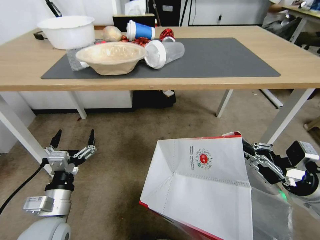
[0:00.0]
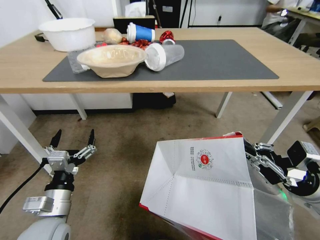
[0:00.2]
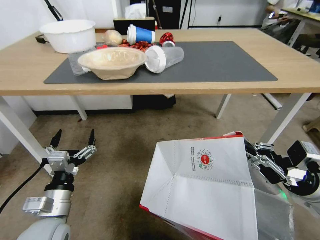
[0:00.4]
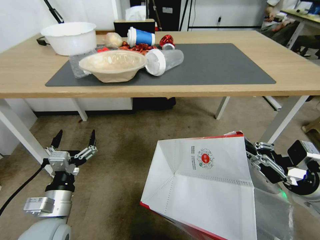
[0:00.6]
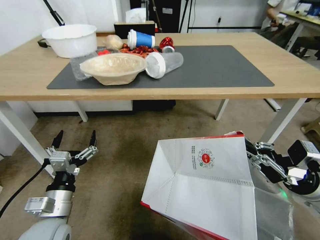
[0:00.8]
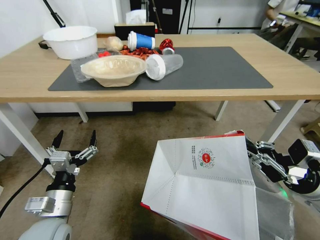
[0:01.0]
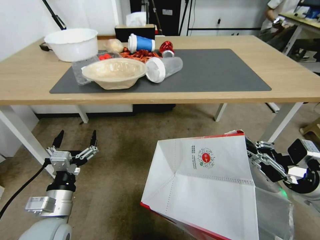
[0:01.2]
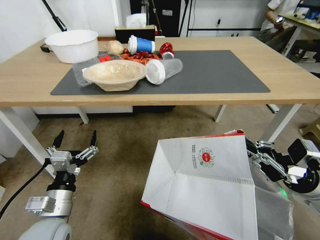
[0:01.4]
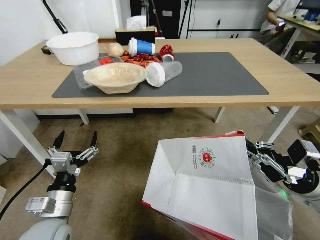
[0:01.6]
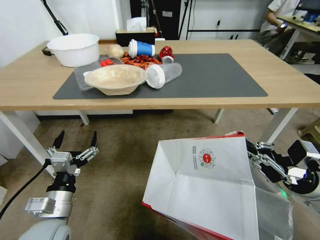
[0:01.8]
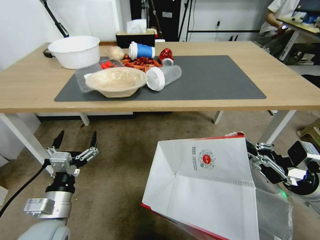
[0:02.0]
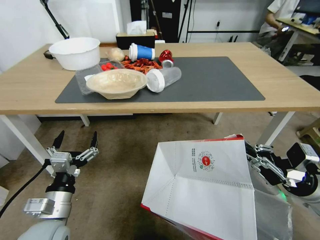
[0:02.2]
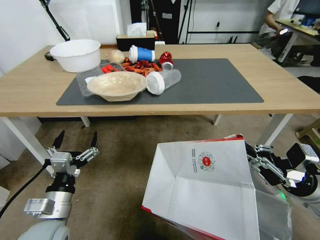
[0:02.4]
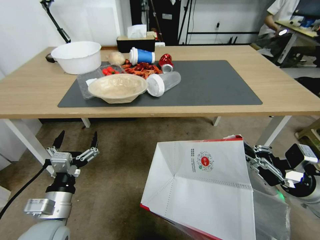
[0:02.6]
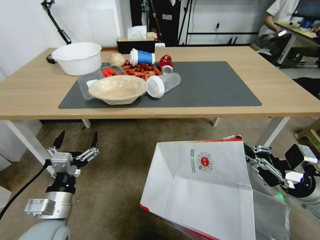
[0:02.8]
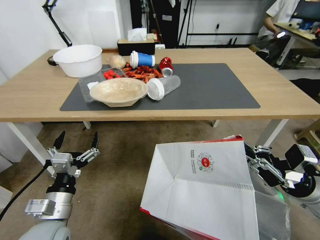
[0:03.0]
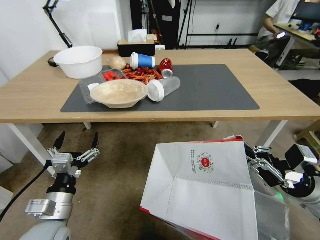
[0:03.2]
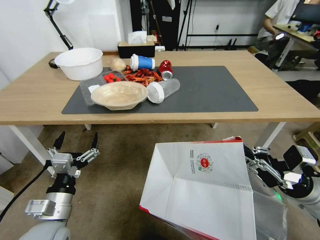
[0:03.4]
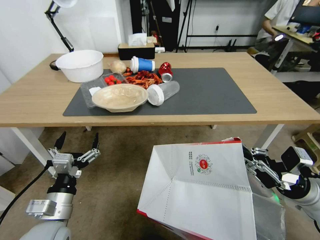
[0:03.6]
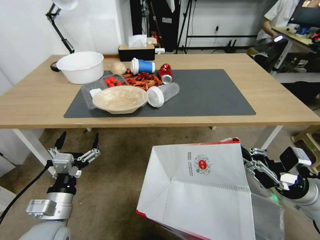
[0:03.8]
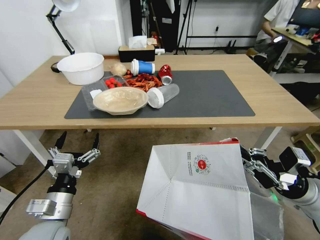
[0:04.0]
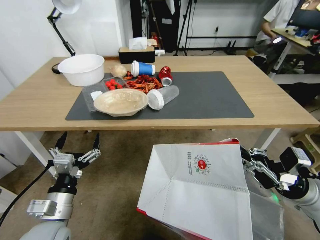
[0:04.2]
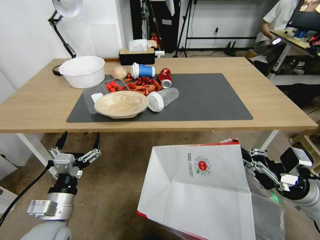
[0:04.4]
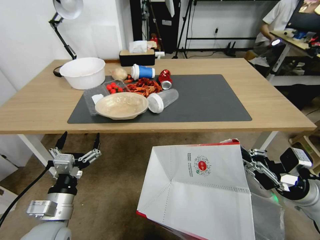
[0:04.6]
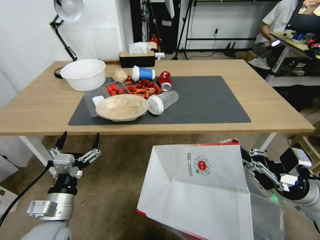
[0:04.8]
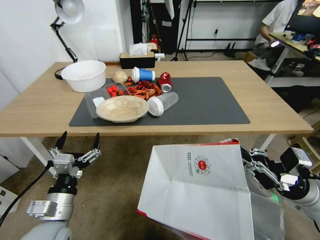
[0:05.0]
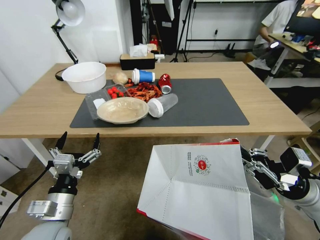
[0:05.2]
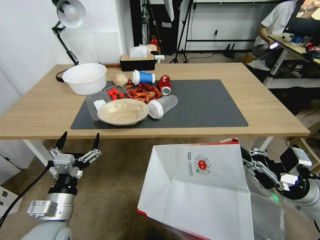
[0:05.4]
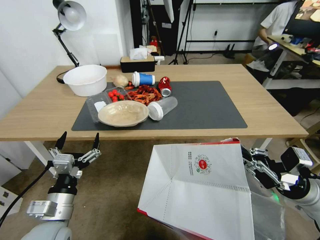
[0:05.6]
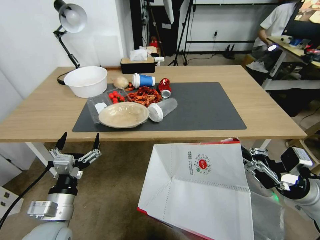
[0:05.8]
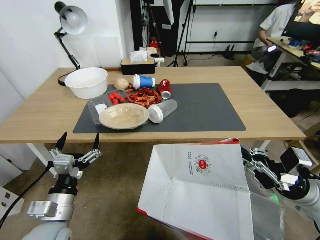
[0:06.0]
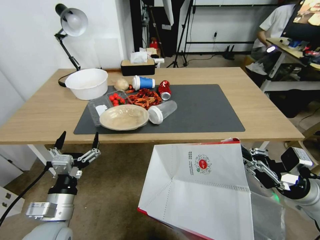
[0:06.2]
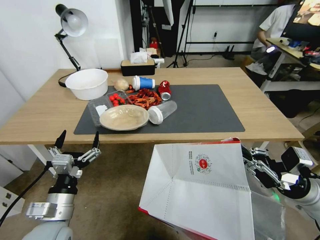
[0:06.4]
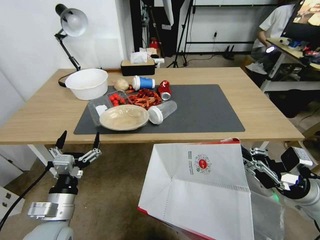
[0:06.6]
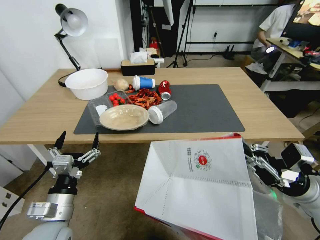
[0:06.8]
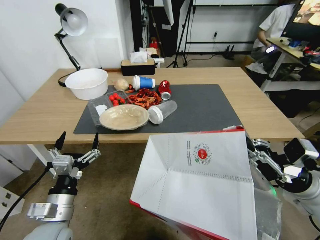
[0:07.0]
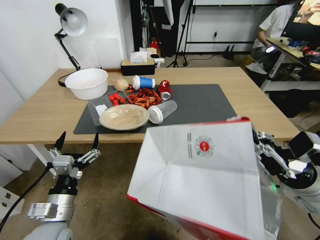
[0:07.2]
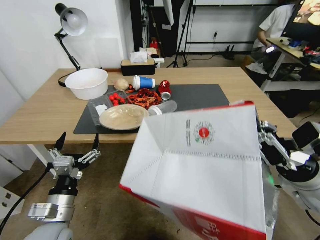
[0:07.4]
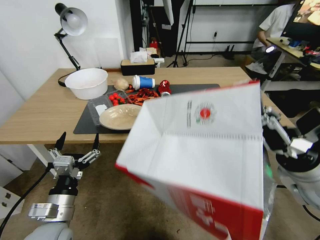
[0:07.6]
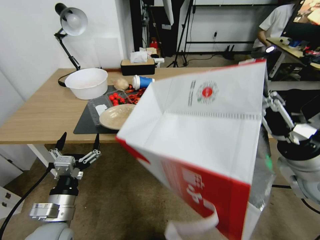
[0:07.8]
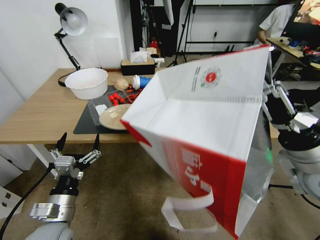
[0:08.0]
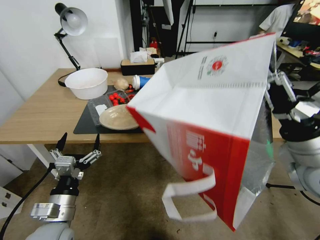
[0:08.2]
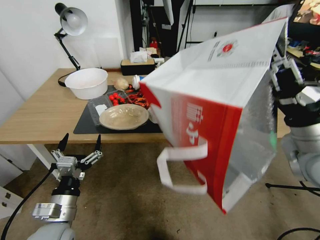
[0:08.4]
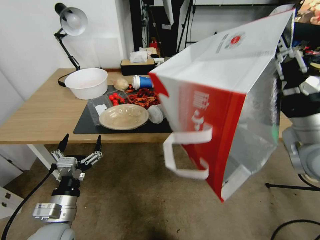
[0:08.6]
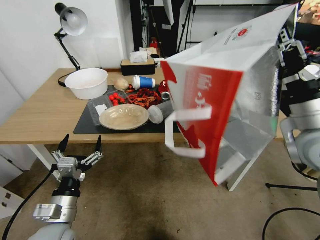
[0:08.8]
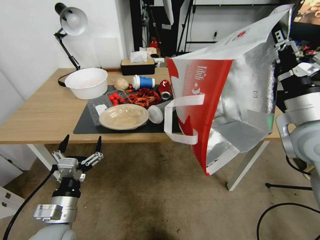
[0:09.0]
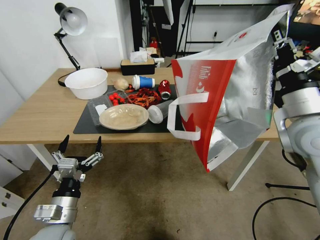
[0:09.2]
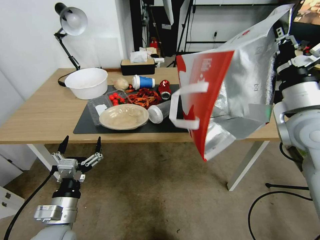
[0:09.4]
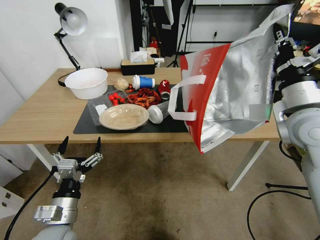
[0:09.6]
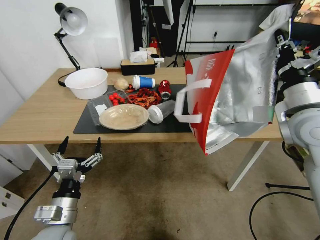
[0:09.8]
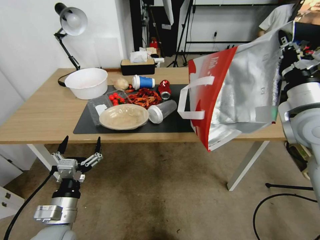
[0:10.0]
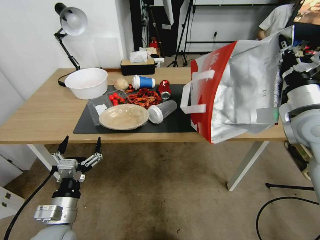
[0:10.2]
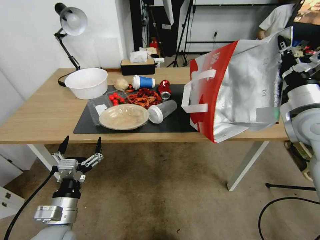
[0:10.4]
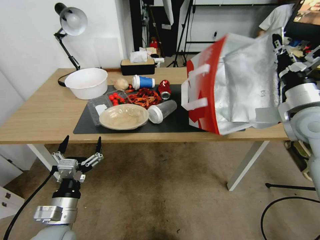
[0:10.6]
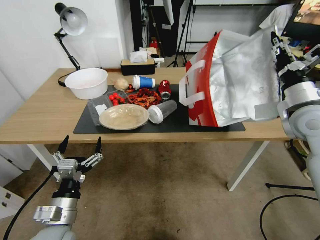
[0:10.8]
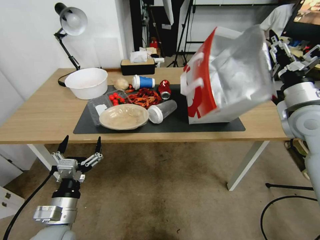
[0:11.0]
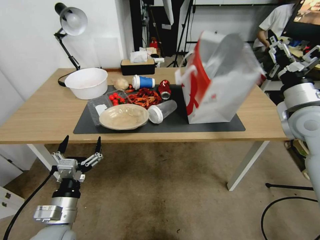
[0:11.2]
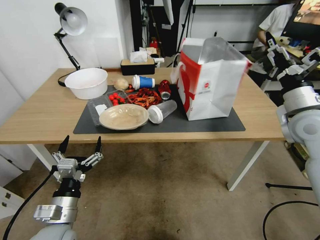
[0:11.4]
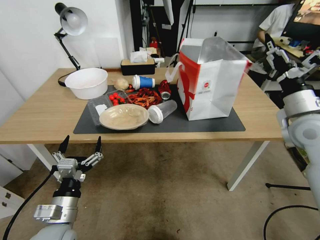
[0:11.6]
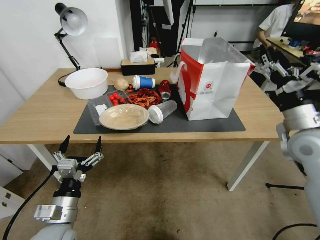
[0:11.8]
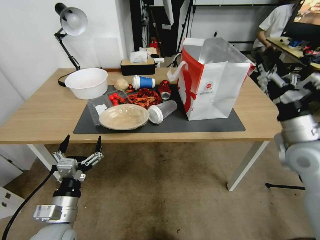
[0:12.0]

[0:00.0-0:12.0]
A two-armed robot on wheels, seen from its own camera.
Task of the whole recording: Pick up the food delivery bag from the floor and place it on the table.
0:06.0 to 0:07.6: The right gripper heads upward, covering approximately 5 cm.
0:07.6 to 0:09.0: The right gripper heads upward and forward, covering about 10 cm.
0:09.0 to 0:10.4: The right gripper shifts about 5 cm forward.
0:10.4 to 0:12.0: The right gripper moves downward and backward, about 10 cm, and opens its fingers.

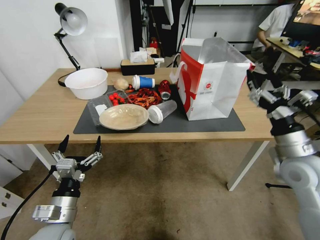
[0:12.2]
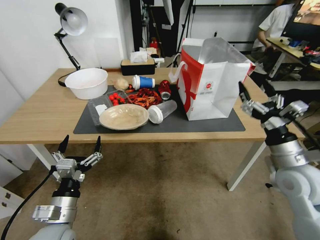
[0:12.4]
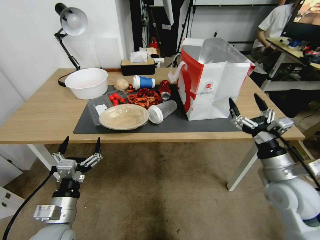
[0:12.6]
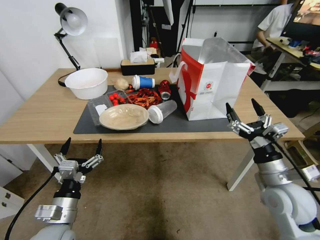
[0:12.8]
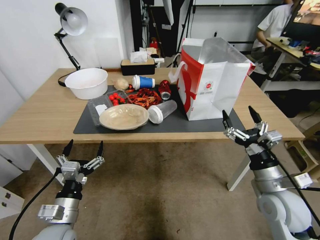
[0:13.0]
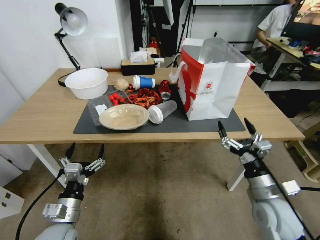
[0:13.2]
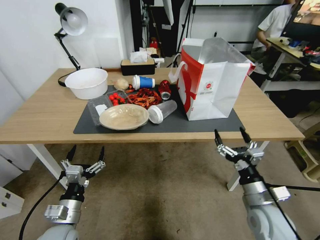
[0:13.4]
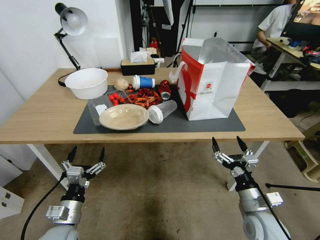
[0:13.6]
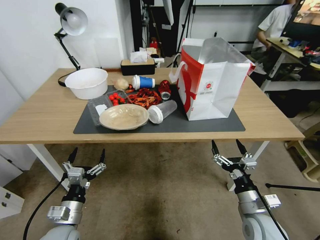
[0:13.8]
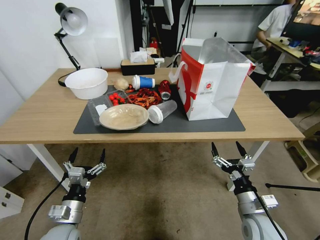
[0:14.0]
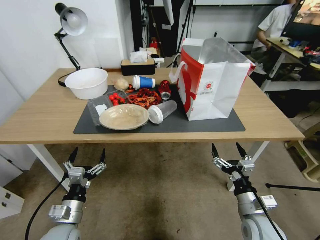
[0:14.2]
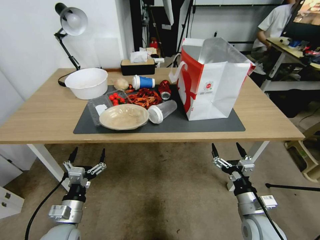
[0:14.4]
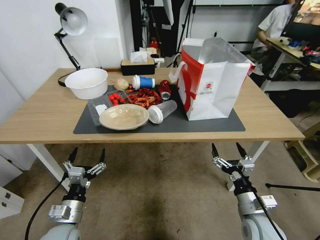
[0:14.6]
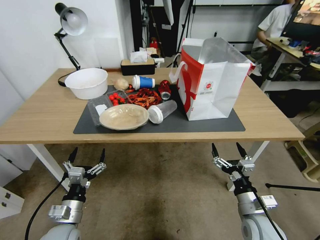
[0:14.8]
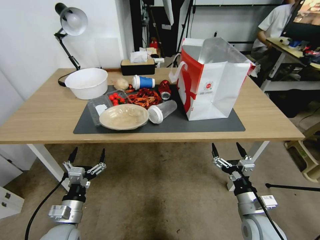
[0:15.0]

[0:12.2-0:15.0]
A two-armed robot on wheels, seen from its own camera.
Task of the whole recording: Pick up the food delivery bag from the floor and place it on the table.
0:12.2 to 0:13.6: The left gripper moves downward, about 5 cm, while the right gripper moves downward and backward, roughly 20 cm.
0:13.6 to 0:15.0: The grippers move only a little.

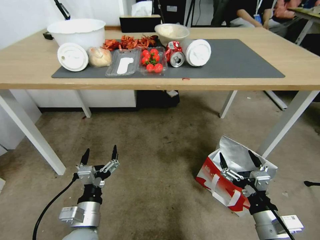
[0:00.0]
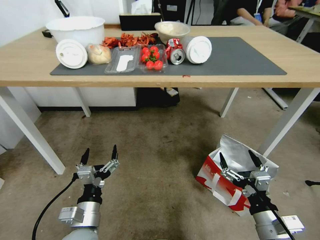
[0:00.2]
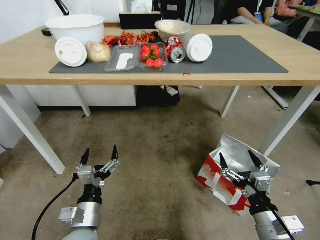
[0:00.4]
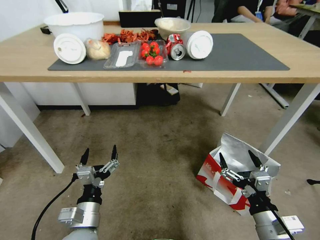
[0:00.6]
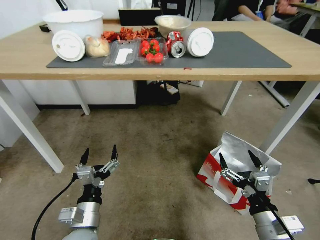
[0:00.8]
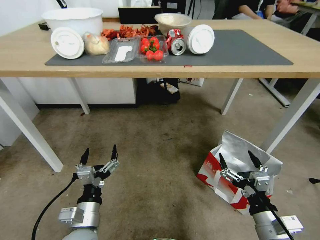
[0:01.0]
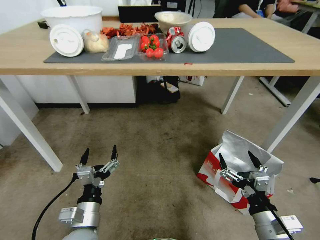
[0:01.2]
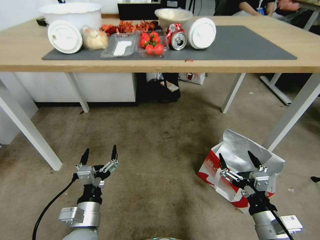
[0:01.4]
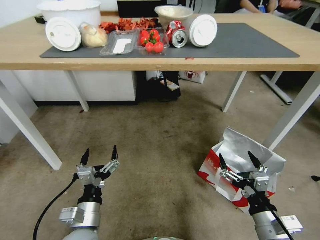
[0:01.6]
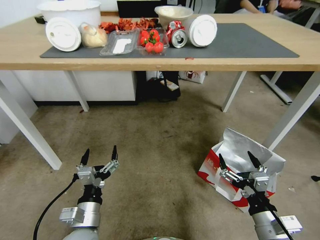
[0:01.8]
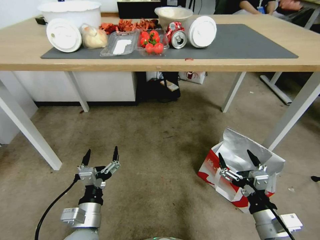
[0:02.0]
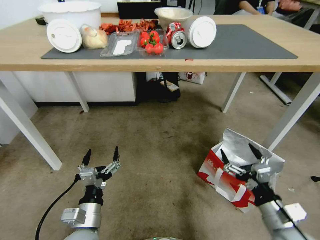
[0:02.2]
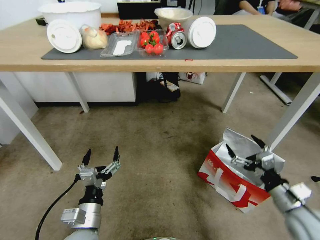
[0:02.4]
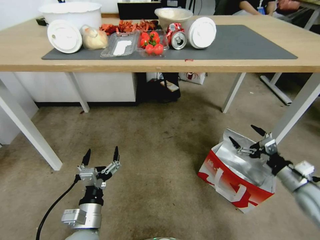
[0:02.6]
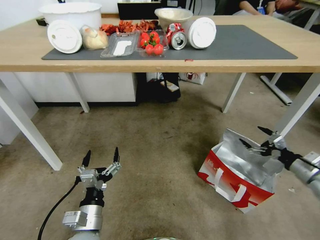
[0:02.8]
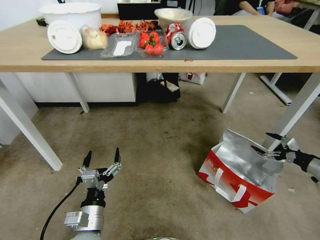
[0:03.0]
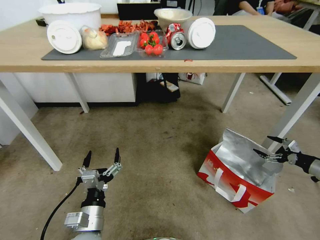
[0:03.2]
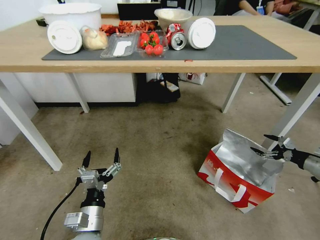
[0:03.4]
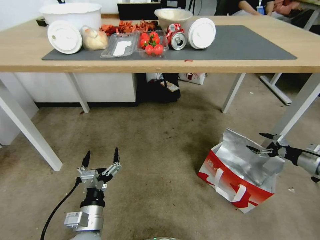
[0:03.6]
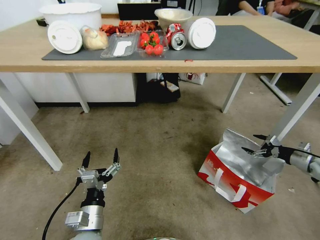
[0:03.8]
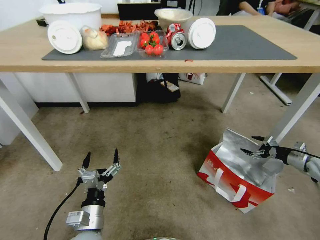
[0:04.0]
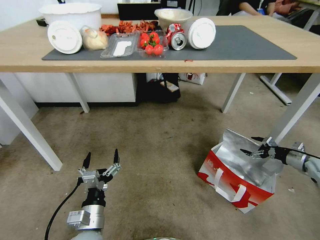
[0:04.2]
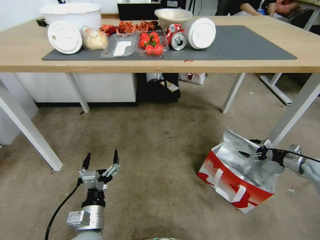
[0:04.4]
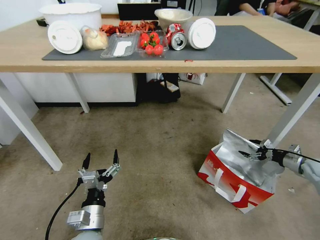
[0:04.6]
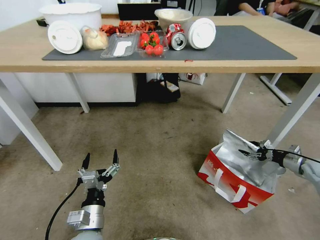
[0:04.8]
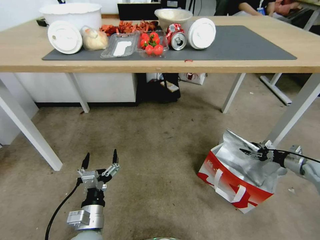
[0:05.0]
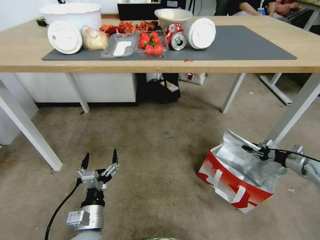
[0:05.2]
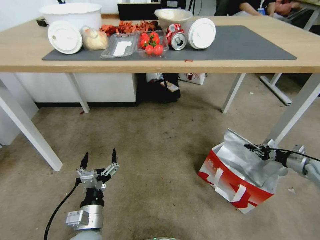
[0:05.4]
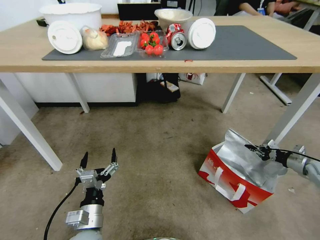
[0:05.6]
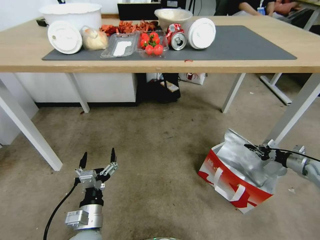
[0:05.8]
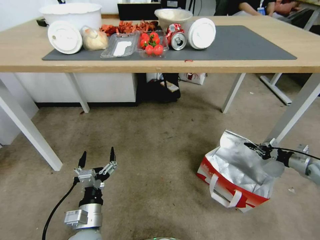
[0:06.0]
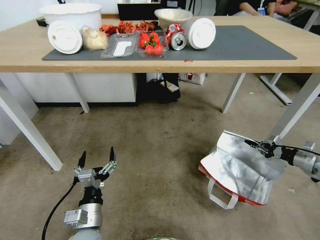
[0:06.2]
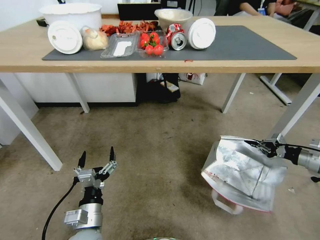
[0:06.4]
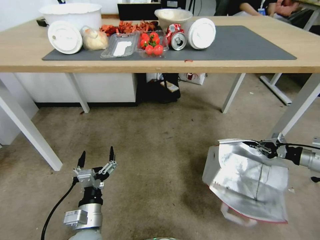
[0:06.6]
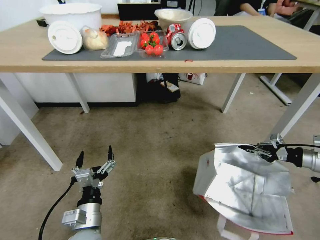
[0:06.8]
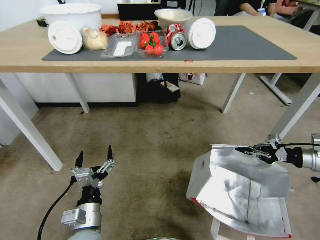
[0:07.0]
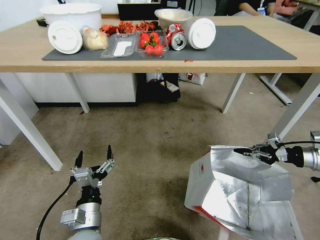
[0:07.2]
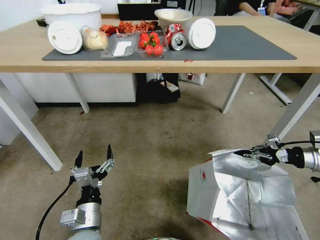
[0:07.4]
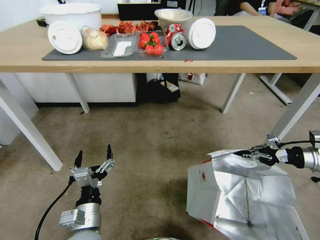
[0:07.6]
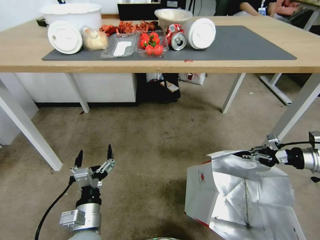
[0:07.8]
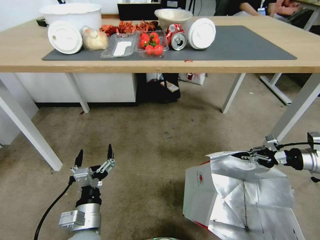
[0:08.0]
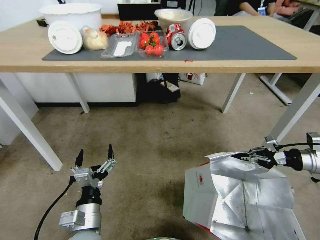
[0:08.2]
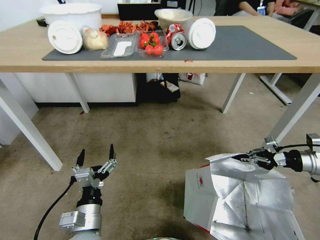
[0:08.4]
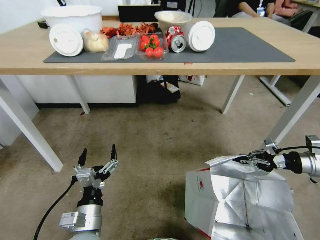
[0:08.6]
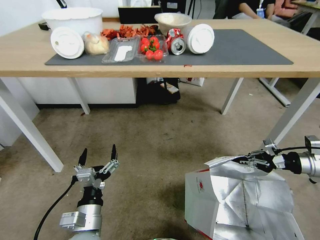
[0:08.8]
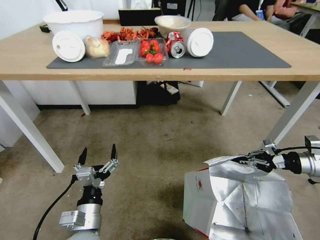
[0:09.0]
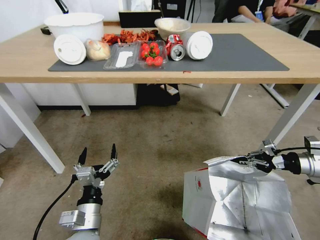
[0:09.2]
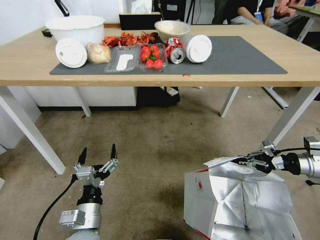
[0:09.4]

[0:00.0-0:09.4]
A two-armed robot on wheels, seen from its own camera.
Task of the whole recording: Pick up the food delivery bag from the floor and place it on the table.
0:01.6 to 0:03.2: The right gripper heads to the right and forward, covering some 35 cm.
0:03.2 to 0:04.8: The right gripper shifts approximately 10 cm forward and downward.
0:04.8 to 0:06.2: The right gripper is displaced upward by approximately 5 cm, and closes up.
0:06.2 to 0:07.8: The right gripper goes some 10 cm upward and to the left.
